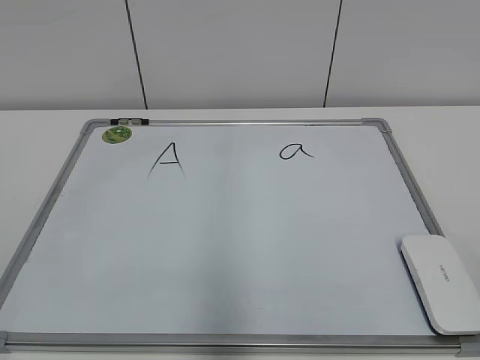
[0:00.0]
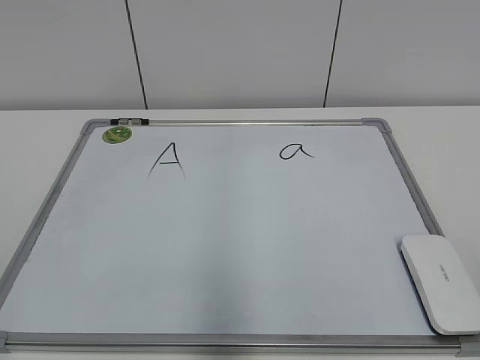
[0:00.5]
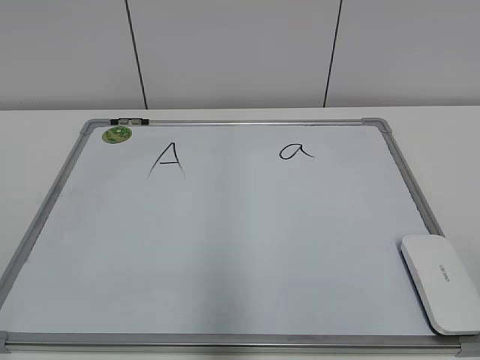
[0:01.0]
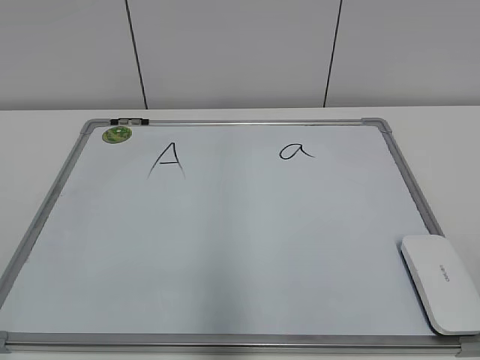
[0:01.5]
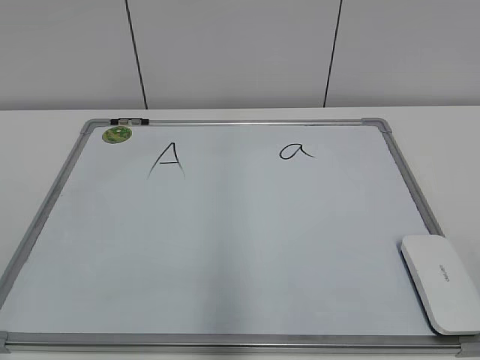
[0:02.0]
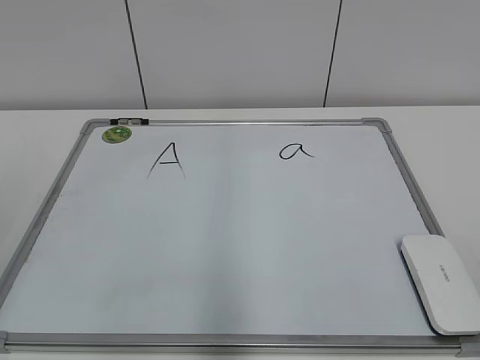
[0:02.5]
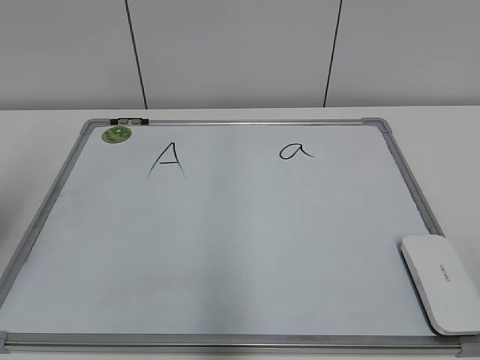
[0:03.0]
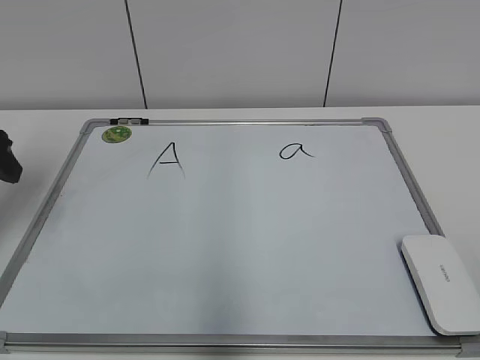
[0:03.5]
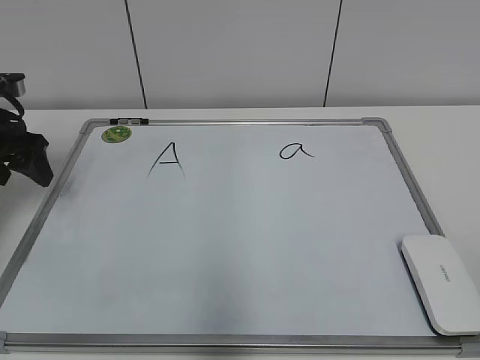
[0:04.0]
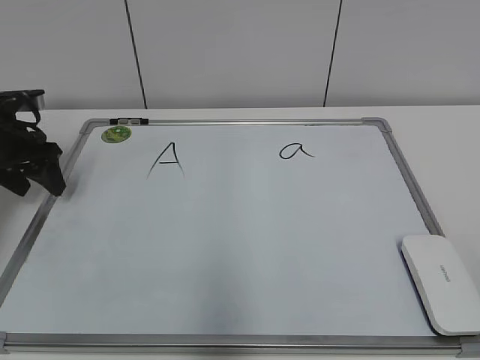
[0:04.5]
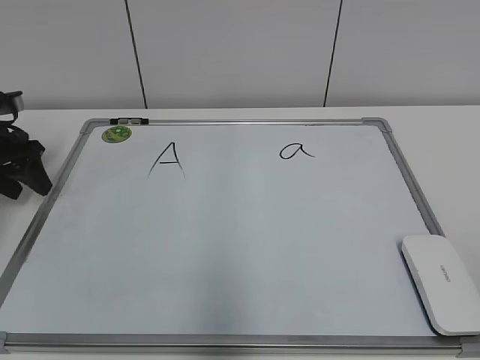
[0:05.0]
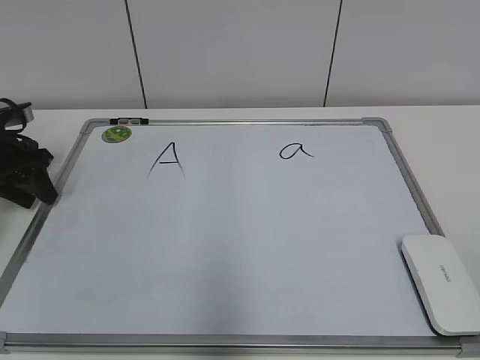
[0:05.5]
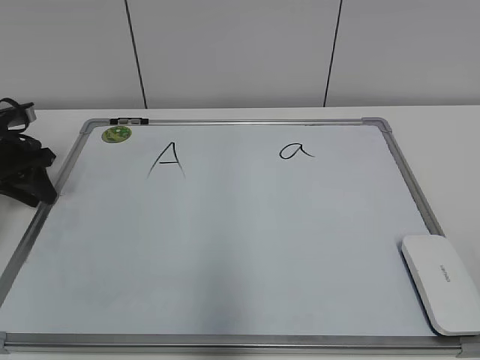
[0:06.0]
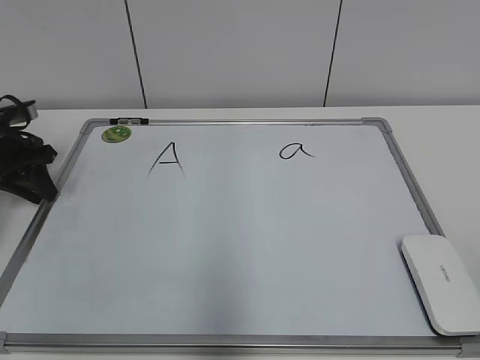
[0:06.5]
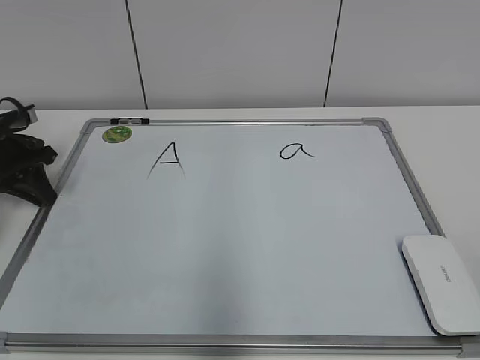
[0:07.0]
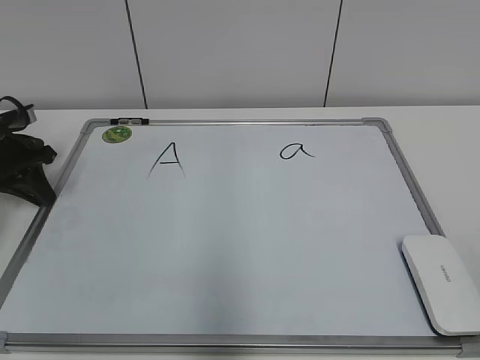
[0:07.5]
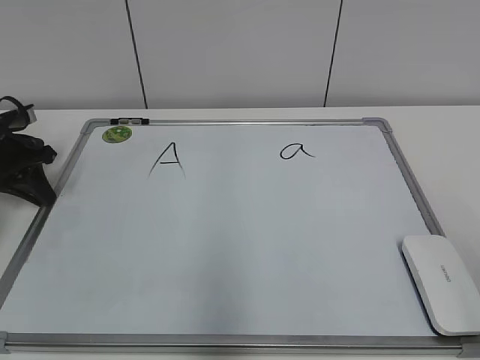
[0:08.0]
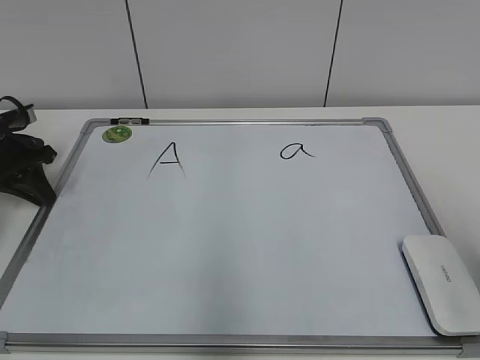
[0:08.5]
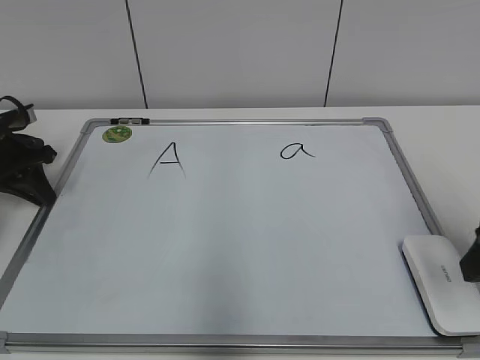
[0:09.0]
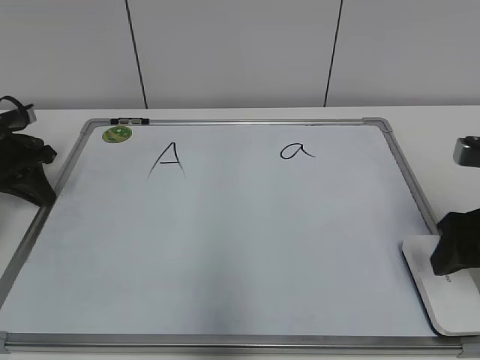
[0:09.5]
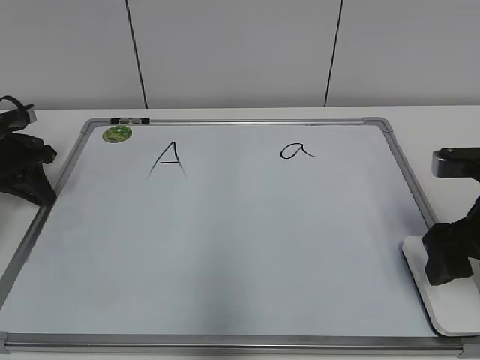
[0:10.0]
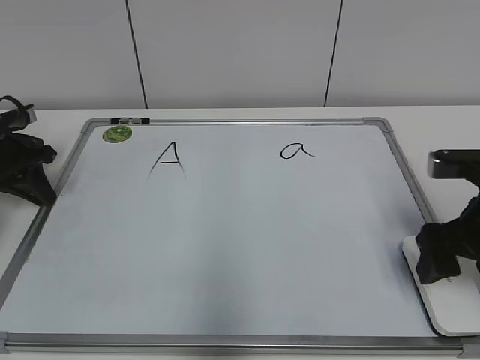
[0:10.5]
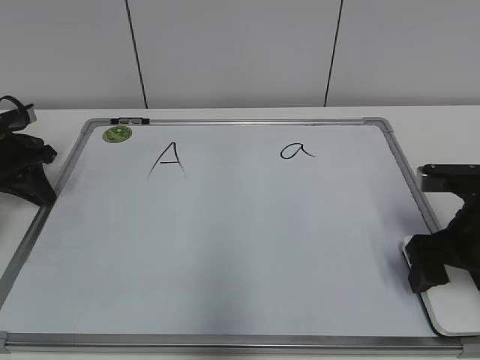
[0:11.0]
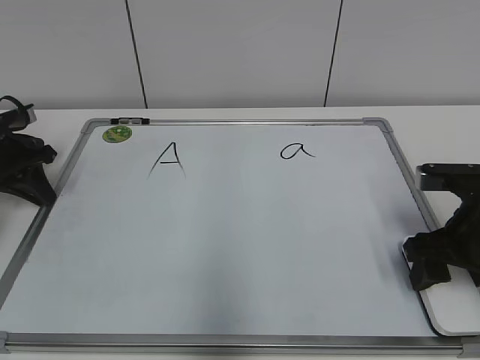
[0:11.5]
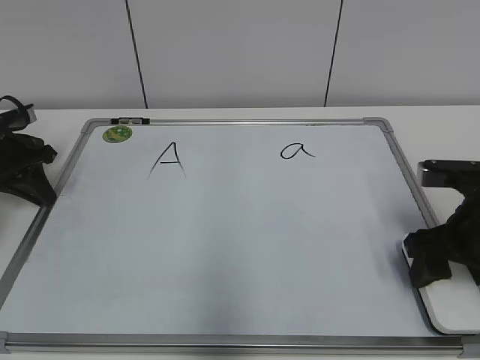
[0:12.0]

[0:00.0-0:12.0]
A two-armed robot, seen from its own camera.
Task of the whole recording: pick up the eraser on the blackboard and erase the letter "a".
Step, 0.0 to 6.5 s: Hold the drawing board steady with your left hand.
Step, 7.0 to 11.5 s: Grab the eraser with your right hand.
2.0 to 4.0 s: The left gripper moves forward, about 40 cm.
4.0 to 6.0 s: The left gripper goes approximately 5 cm downward, and closes.
8.0 to 10.0 s: The right gripper travels forward and downward by approximately 25 cm.
10.0 to 12.0 s: The right gripper closes its fingers.

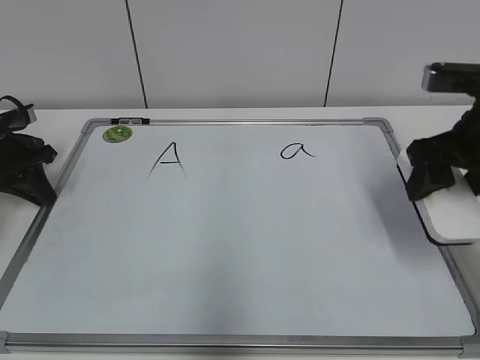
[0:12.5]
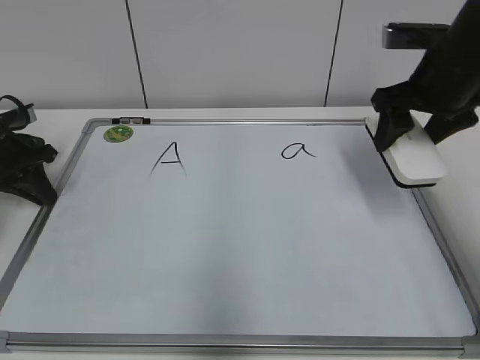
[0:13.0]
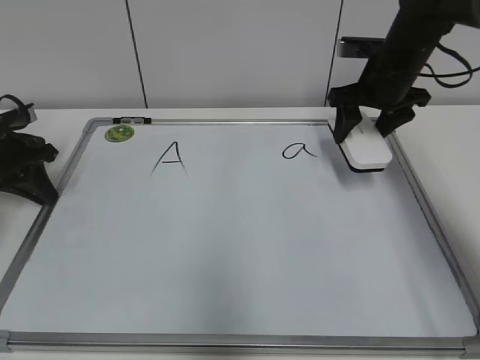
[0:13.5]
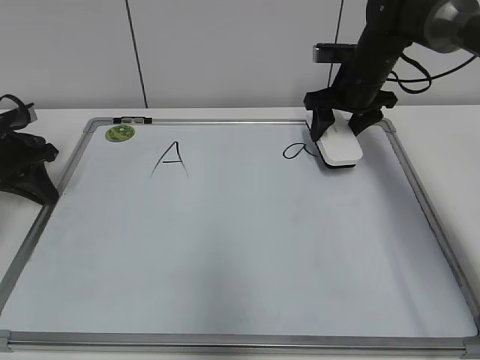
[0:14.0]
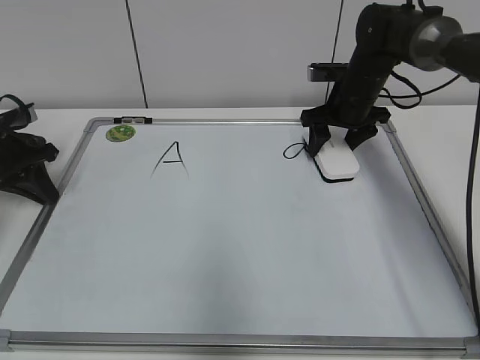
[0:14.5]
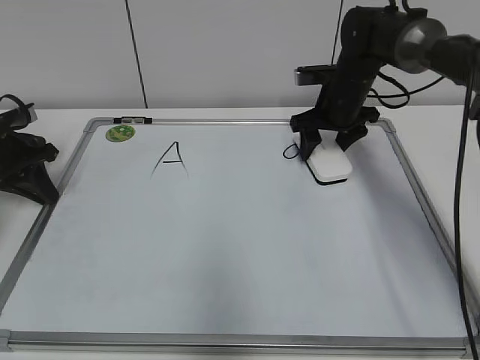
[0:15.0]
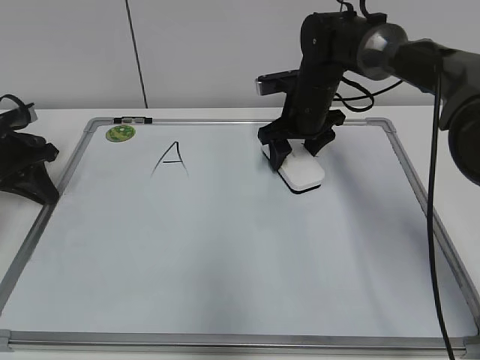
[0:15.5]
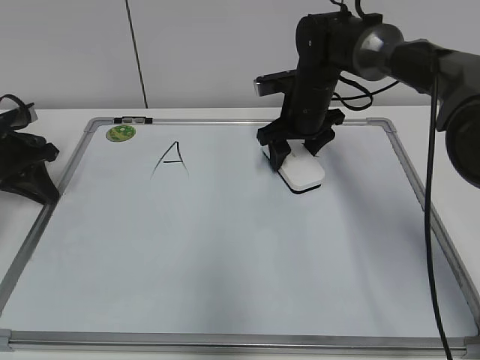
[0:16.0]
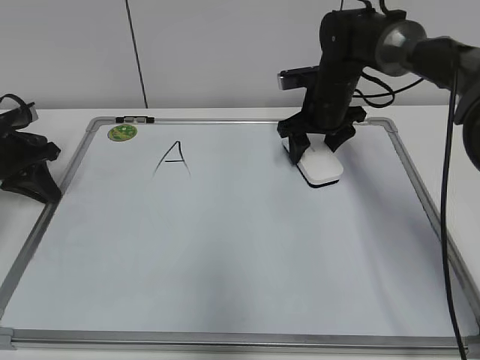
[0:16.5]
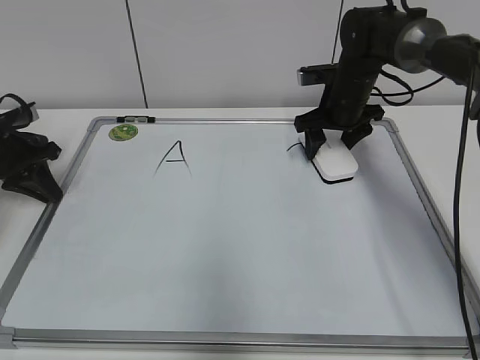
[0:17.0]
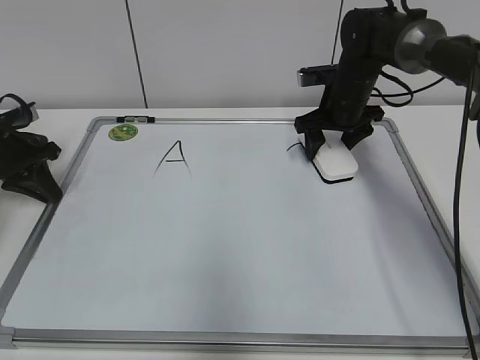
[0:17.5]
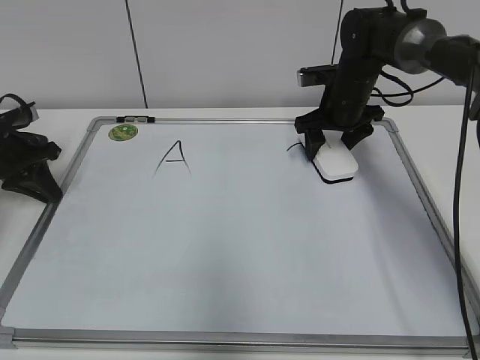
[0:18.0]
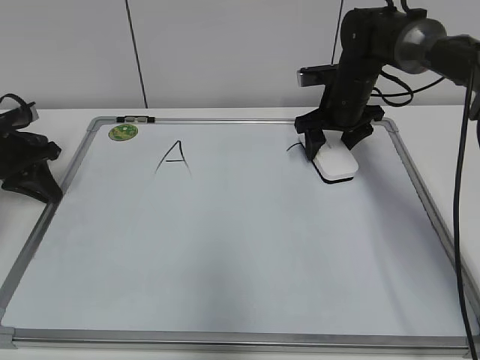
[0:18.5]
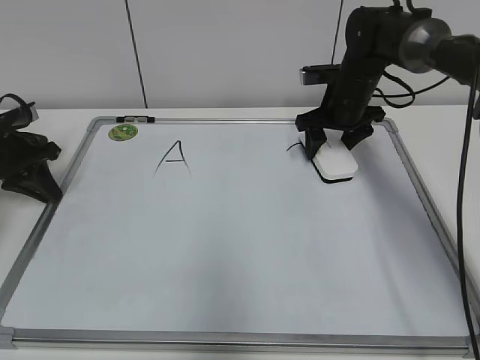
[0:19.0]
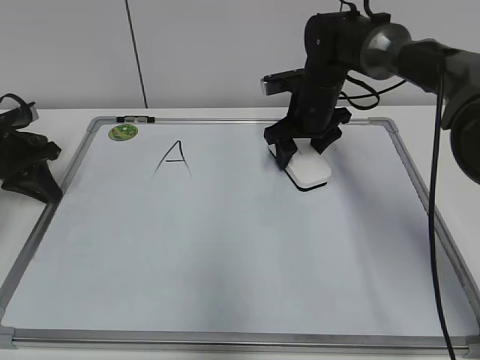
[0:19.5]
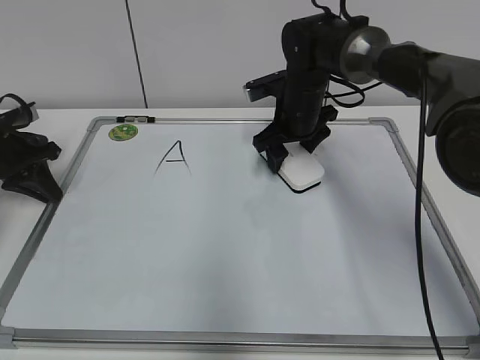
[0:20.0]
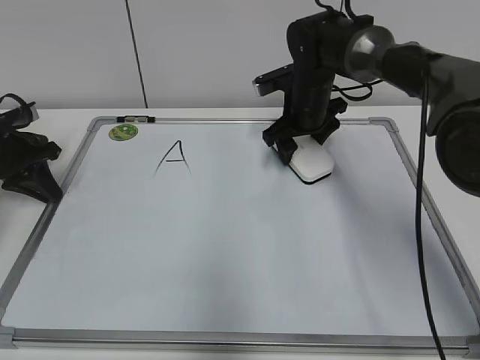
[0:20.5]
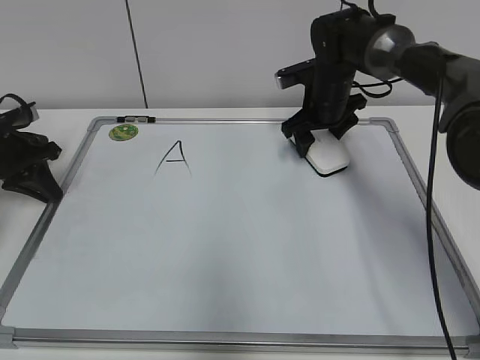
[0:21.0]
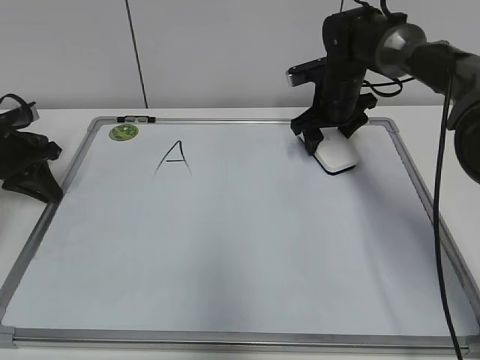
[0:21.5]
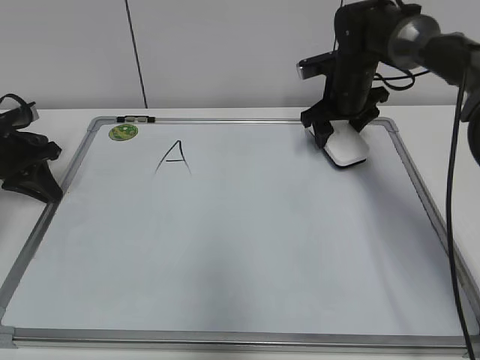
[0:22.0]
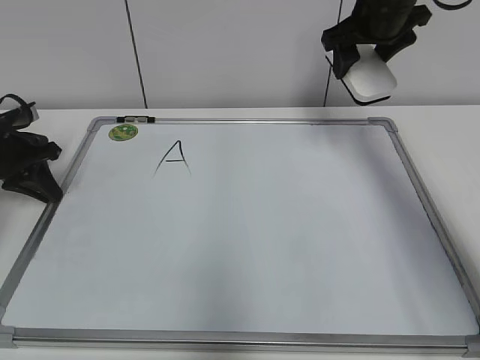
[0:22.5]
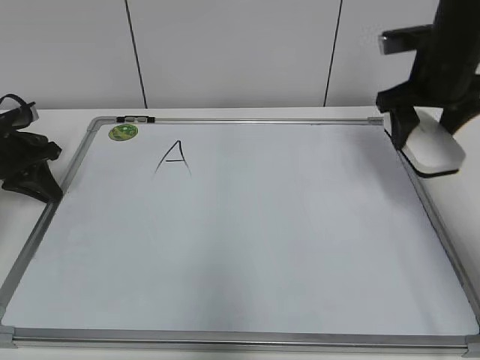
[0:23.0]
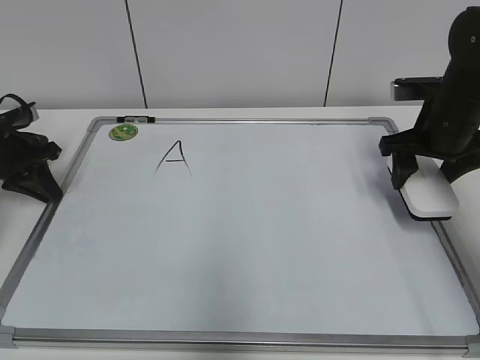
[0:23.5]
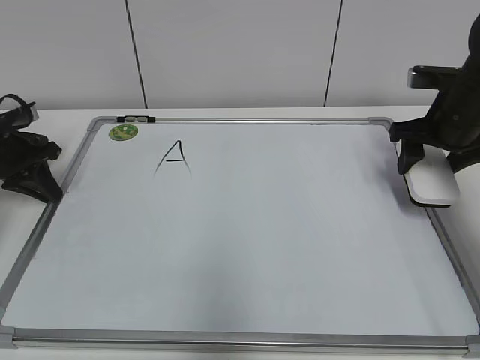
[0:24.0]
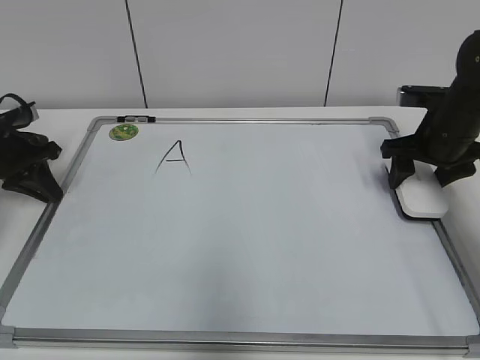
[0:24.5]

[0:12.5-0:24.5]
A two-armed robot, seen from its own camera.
Task of the whole recording: pick up the eraser on the blackboard and erase the letter "a".
Step, 12.5 to 20.0 s: Erase the letter a with your right hand.
12.5 to 14.5 s: The right gripper moves forward, approximately 20 cm.
16.5 to 18.5 s: The grippers make only small movements.
18.5 to 20.5 s: The right gripper heads to the left, covering approximately 5 cm.
20.5 to 22.5 s: The right gripper travels upward and to the right by roughly 15 cm.
22.5 to 24.5 s: The right gripper travels downward, to the right and backward by about 20 cm.

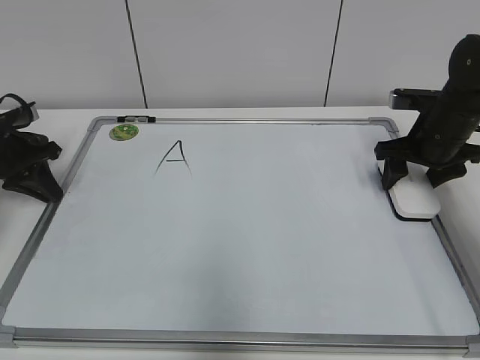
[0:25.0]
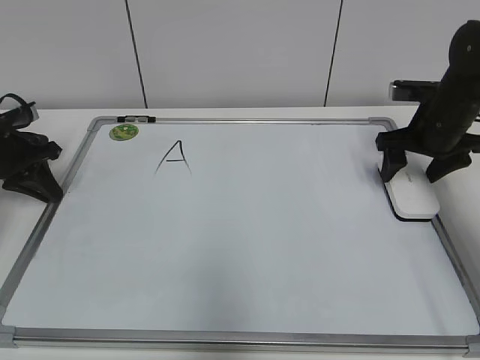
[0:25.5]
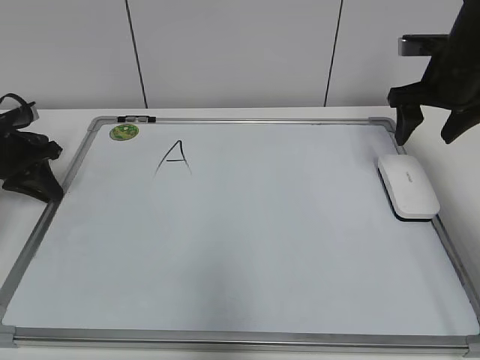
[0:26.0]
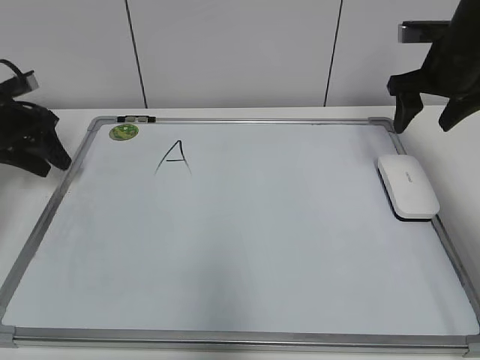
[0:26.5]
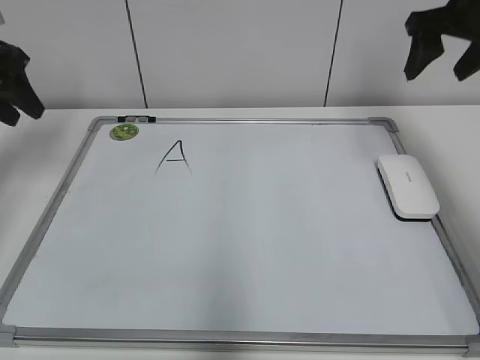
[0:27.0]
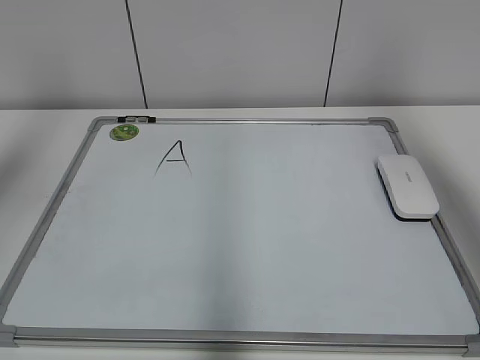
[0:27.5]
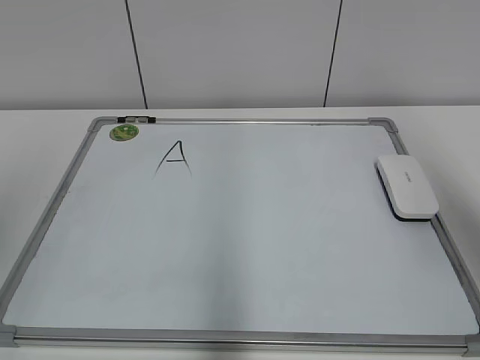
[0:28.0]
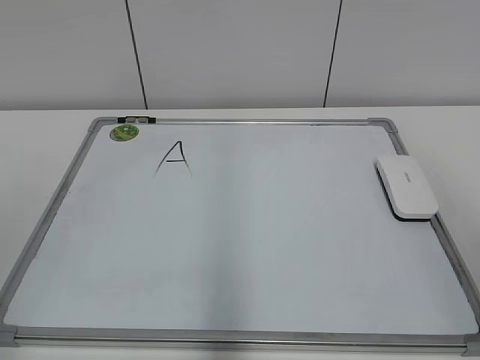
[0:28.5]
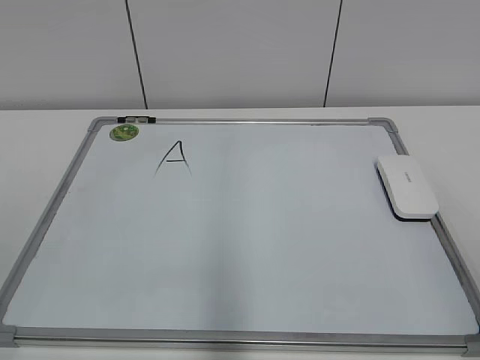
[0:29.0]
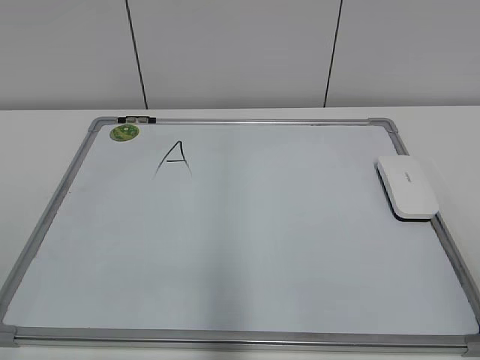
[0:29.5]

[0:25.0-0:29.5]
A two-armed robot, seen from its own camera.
Task of the whole recording: pick up the eraser on the blackboard and erase the letter "a".
25.0 to 27.0 s: Both grippers move upward, about 15 cm. The right gripper opens; the left gripper opens.
27.0 to 29.5 s: Both grippers move backward, roughly 35 cm.
